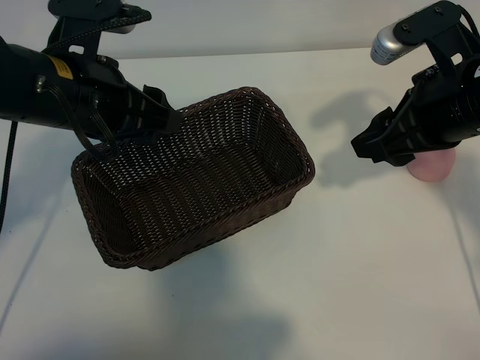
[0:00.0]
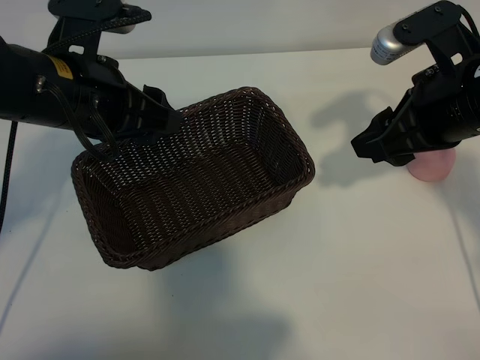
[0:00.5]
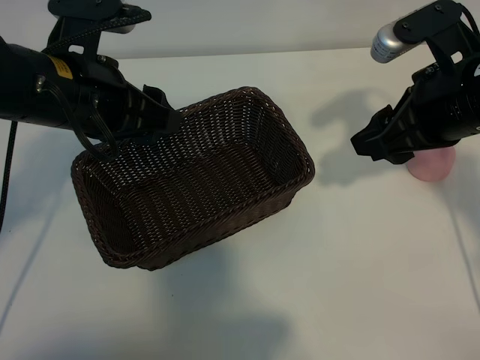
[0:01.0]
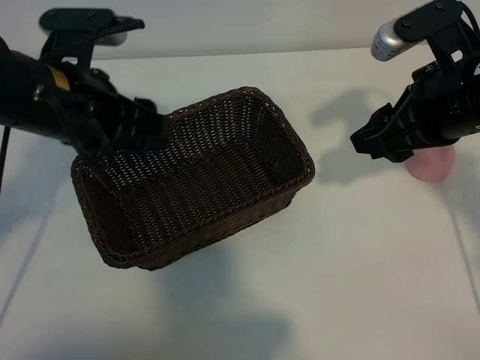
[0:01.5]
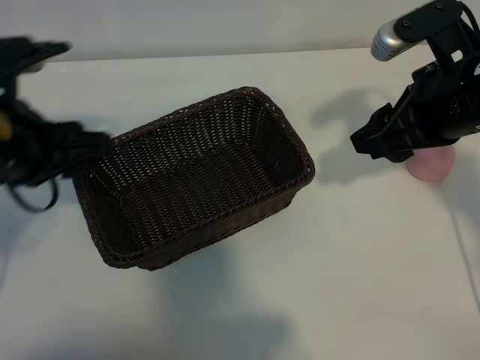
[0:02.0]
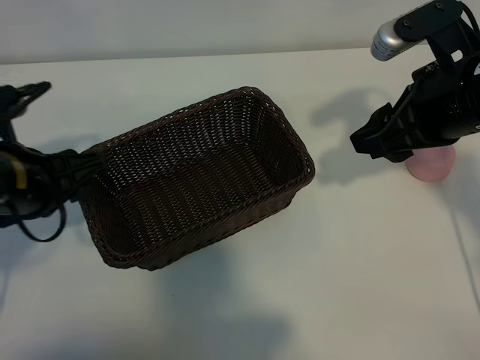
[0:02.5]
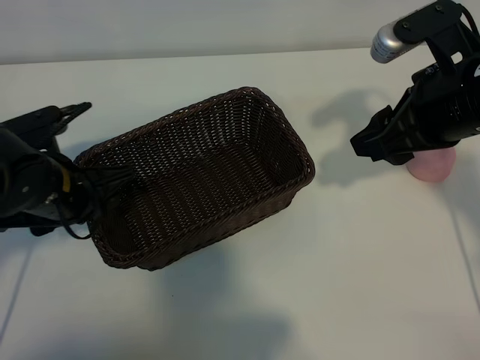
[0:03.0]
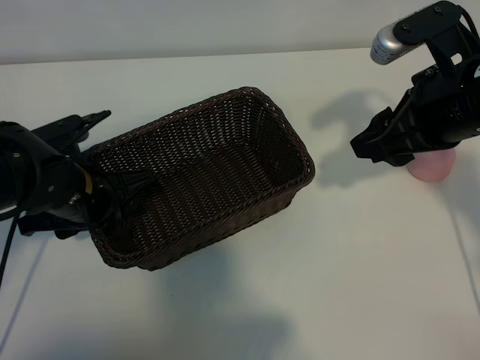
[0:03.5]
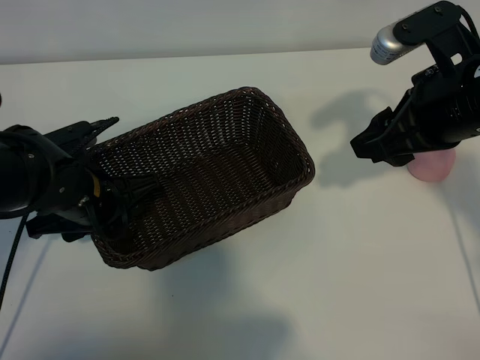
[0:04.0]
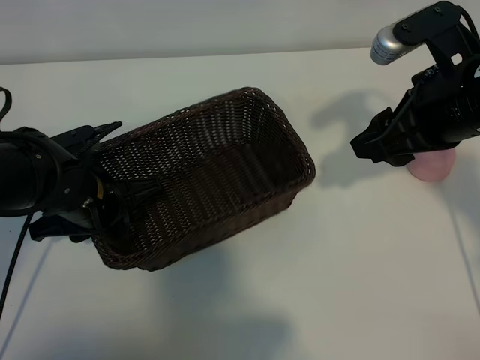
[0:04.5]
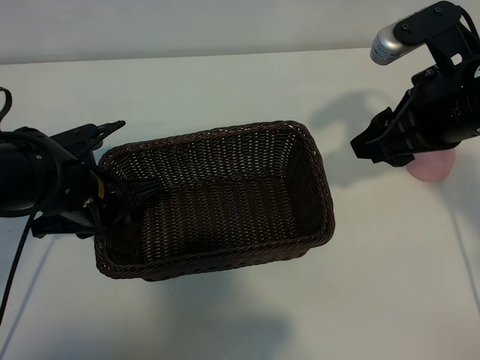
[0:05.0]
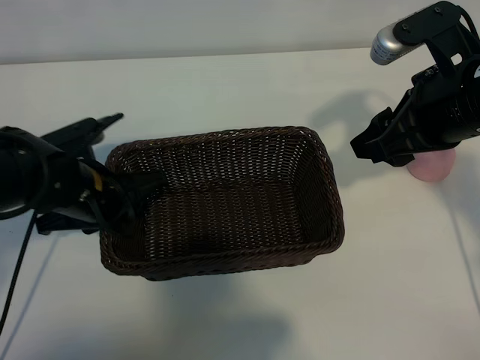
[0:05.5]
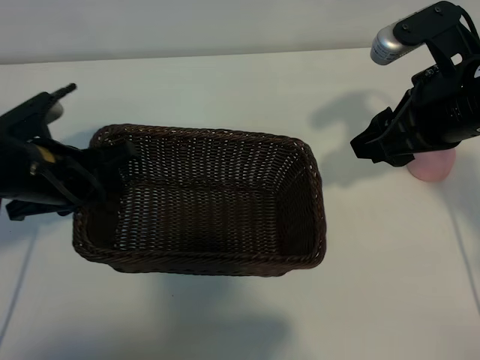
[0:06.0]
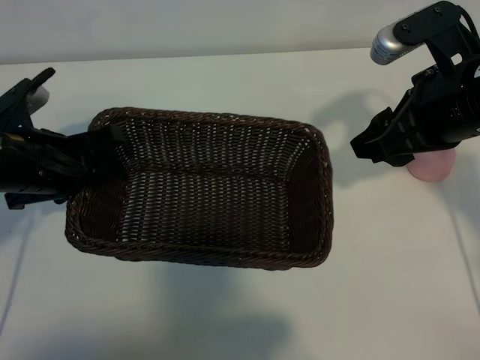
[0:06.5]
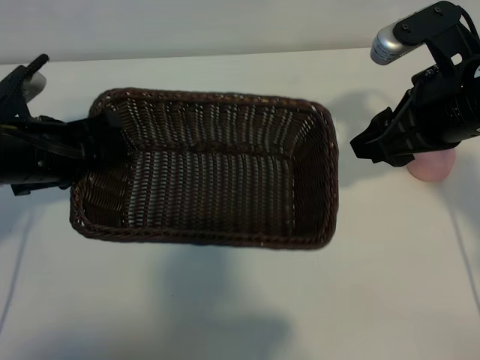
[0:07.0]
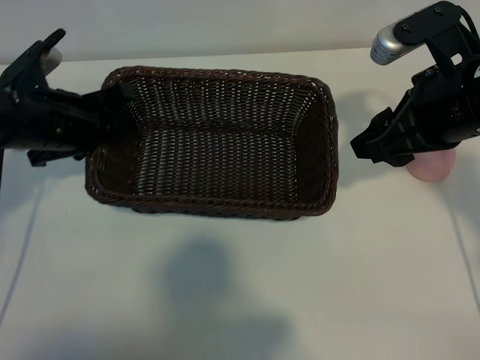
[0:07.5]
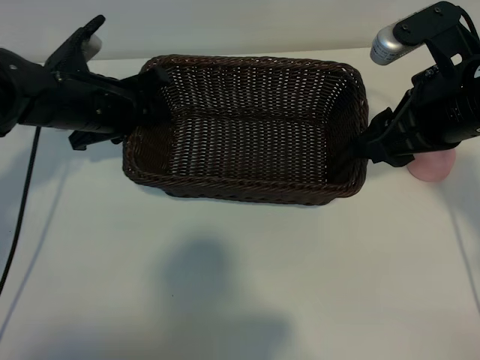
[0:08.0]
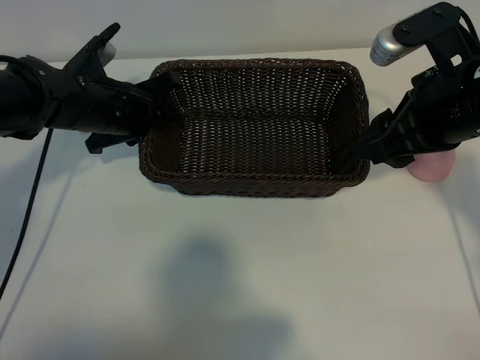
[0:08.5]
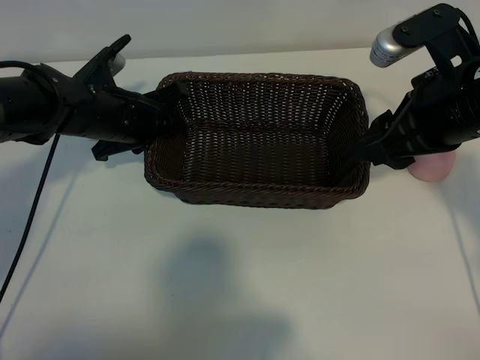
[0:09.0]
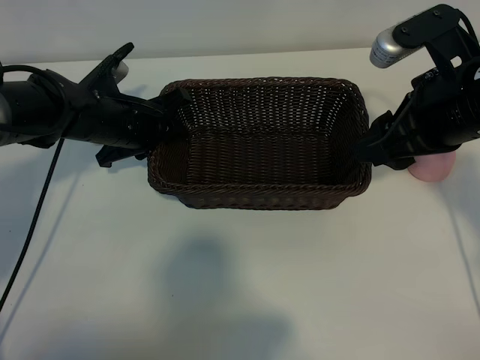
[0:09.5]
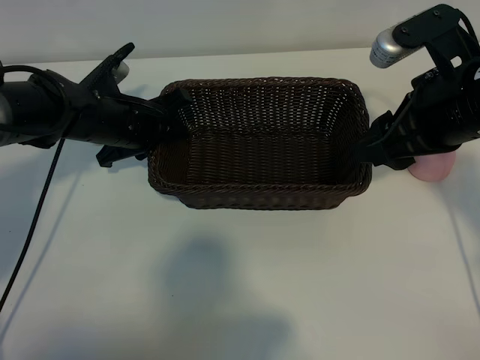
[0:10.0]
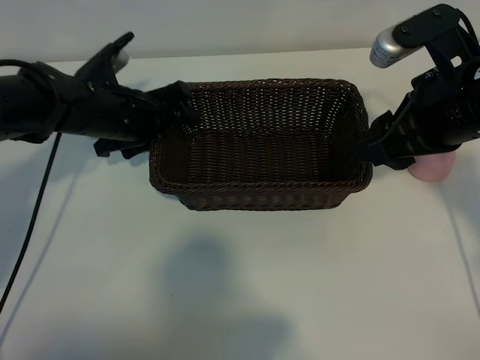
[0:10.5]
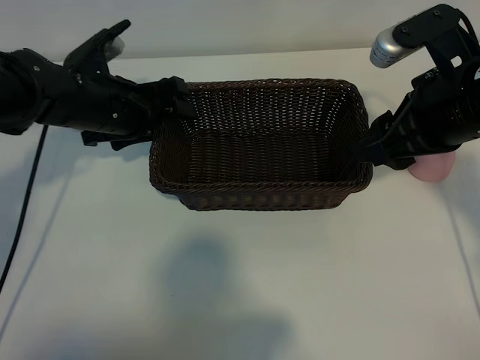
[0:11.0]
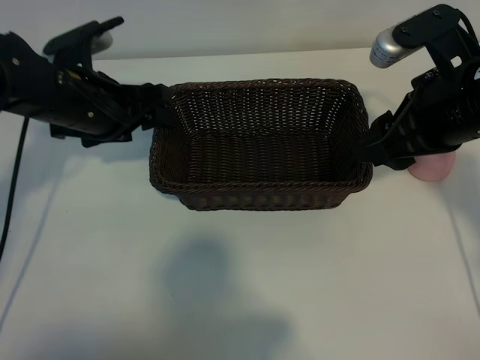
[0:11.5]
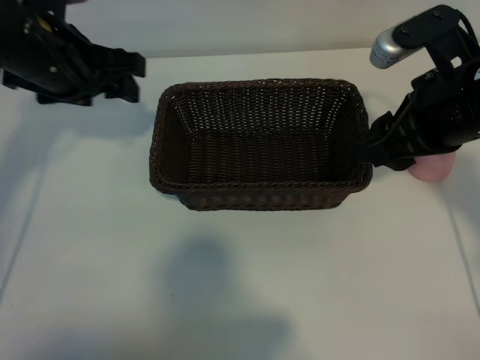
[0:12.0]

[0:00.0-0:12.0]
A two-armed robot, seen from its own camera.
Task of the whole recording: pick up the peach and put it into the basket.
Step, 0:01.5 to 0:04.5: Grasp the basket with left gripper.
Step, 0:05.0 to 0:11.0: Place the basket in the center of view with left gripper.

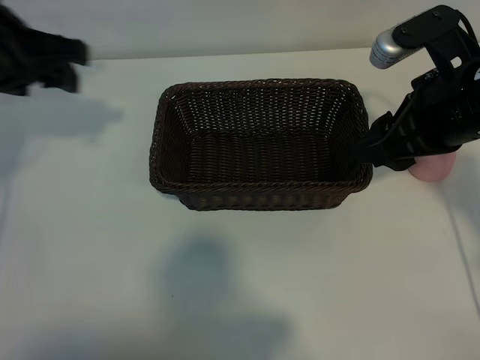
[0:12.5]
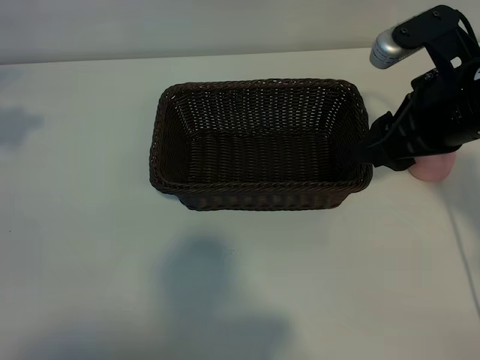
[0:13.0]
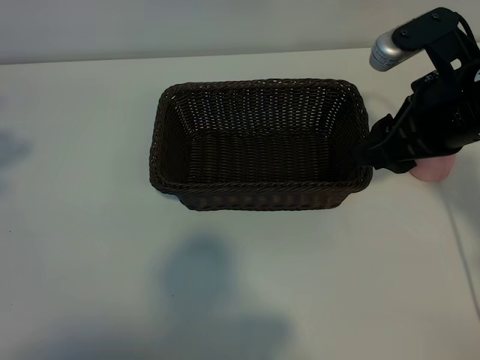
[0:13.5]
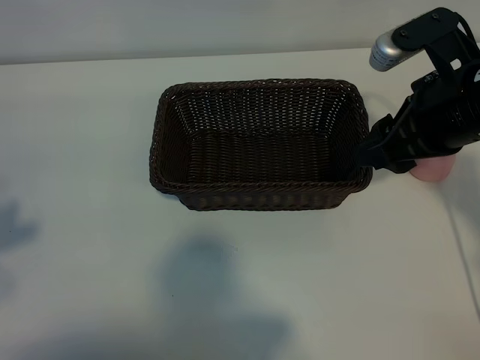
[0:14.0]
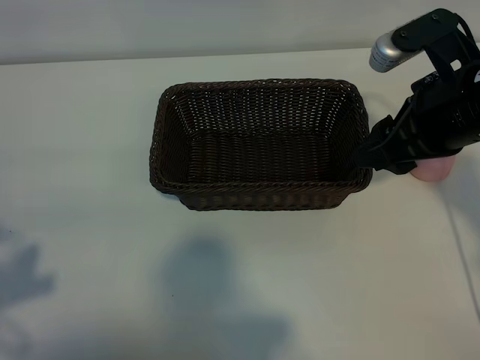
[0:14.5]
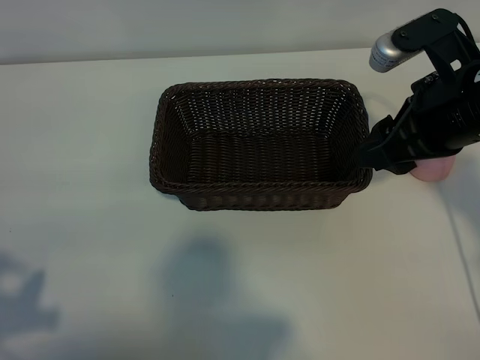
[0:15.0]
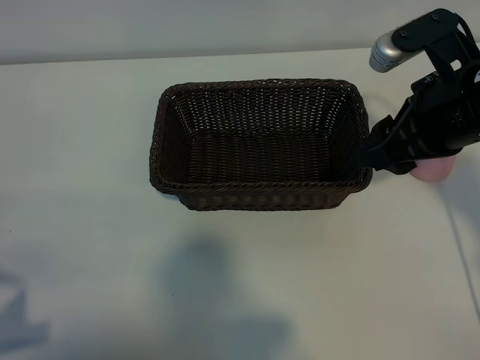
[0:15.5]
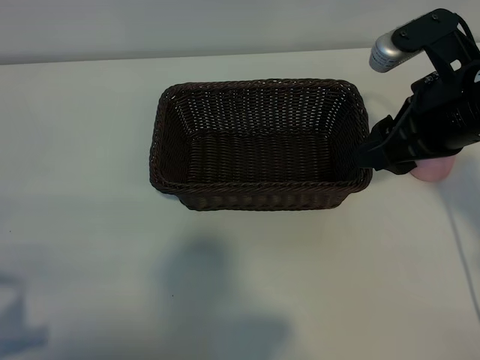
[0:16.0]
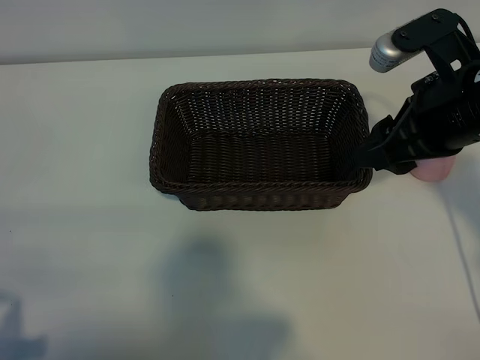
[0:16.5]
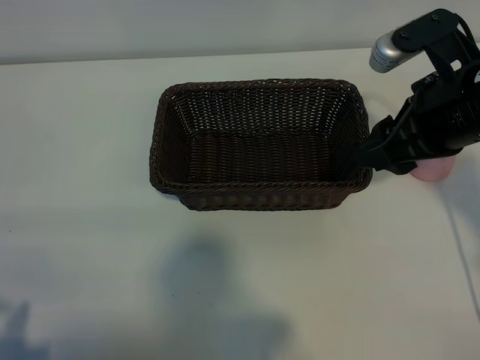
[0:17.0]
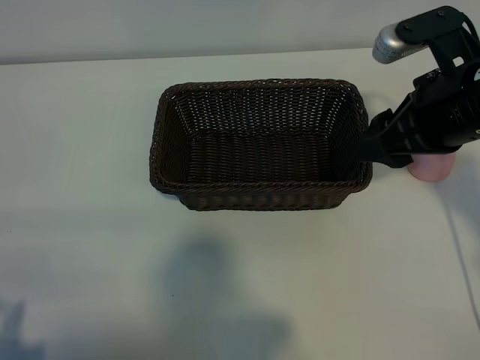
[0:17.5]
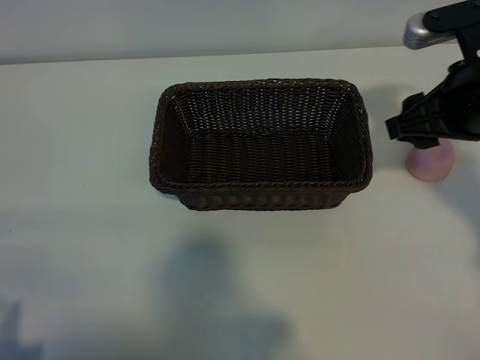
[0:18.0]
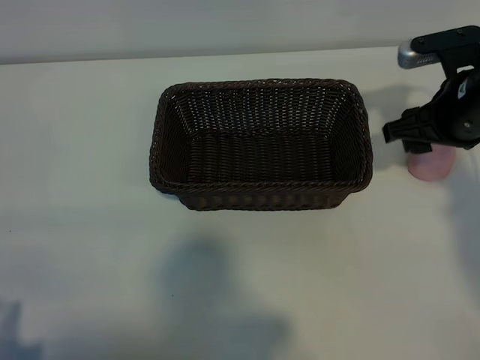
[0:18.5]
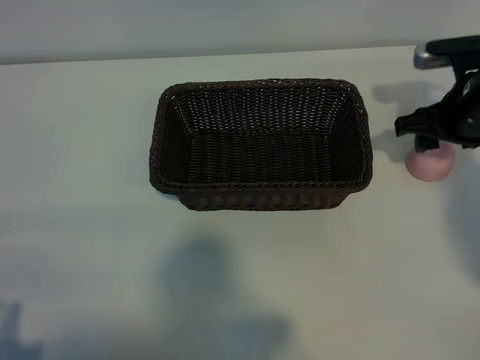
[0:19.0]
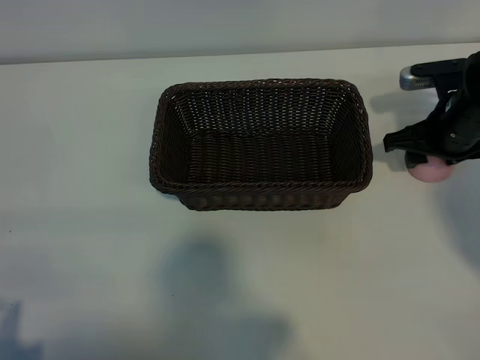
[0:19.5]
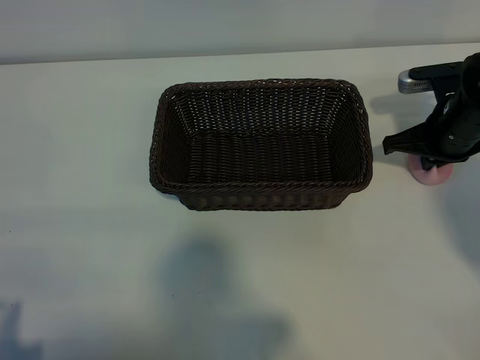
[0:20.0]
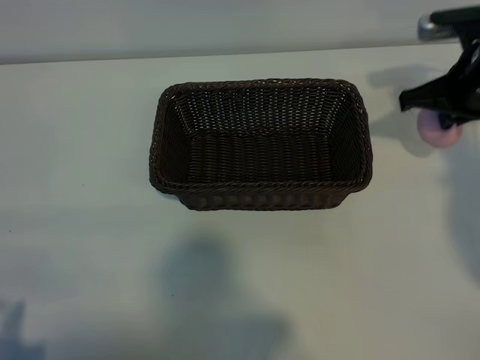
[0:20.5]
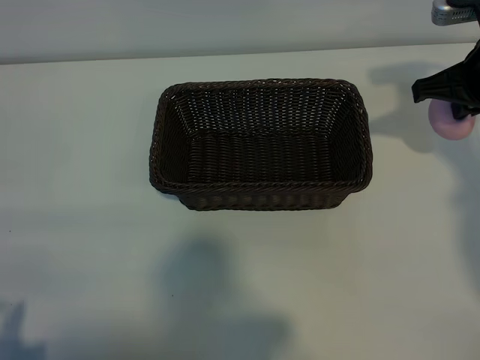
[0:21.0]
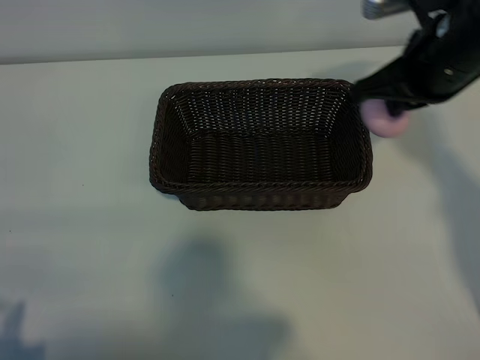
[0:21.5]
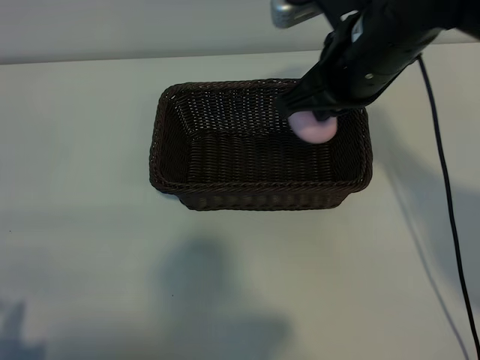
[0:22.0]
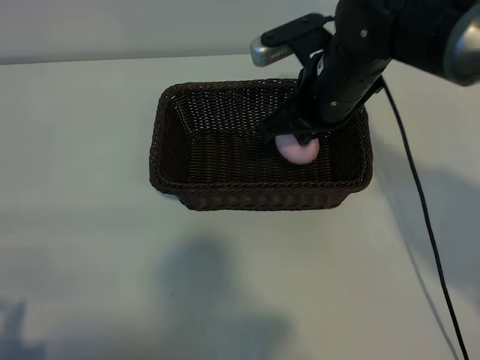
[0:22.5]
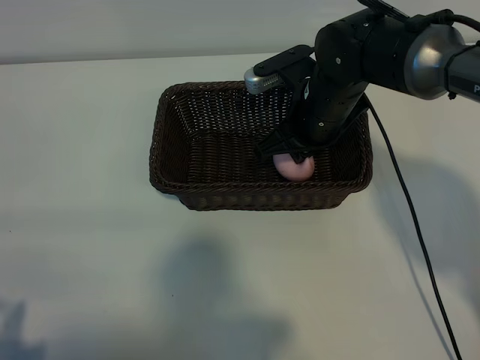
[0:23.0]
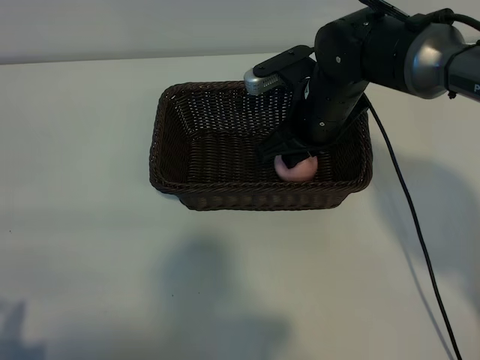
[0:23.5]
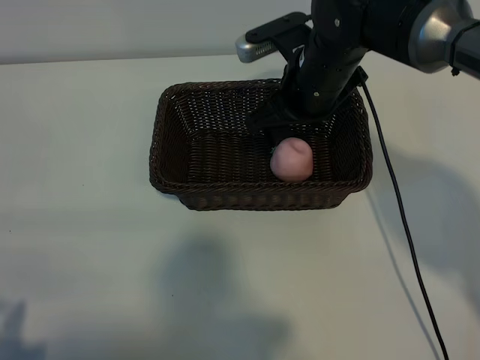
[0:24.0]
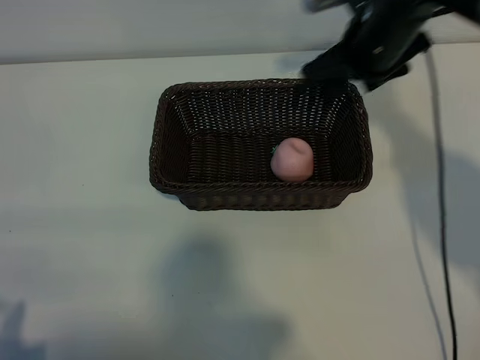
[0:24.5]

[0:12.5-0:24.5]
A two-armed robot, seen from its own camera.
Task of the whole recording: pick up the peach and put it into the basket.
Step, 0:12.5 to 0:19.5: Grasp the peach with right gripper.
Step, 0:20.0 to 0:23.5: Place the peach in the basket with right gripper.
